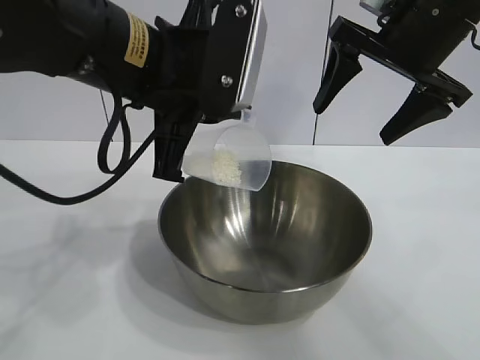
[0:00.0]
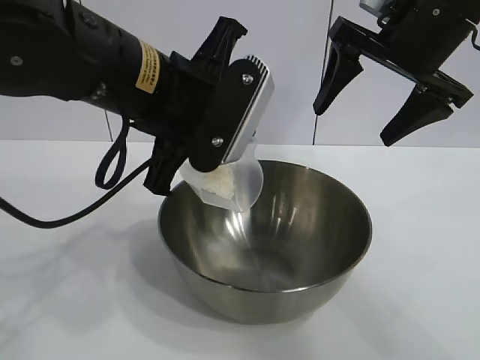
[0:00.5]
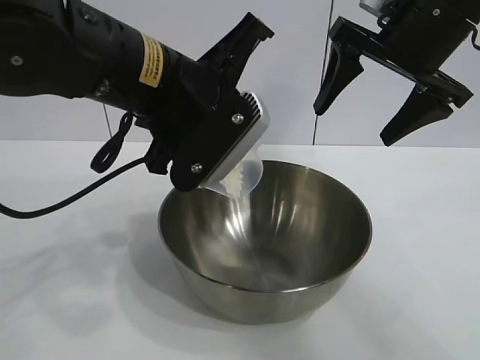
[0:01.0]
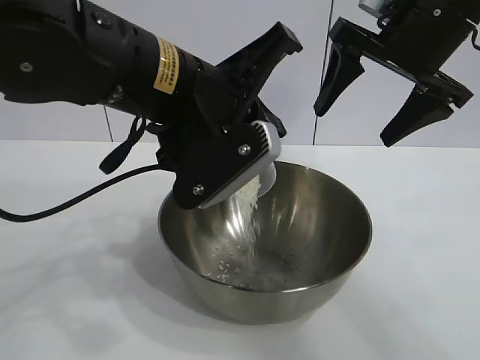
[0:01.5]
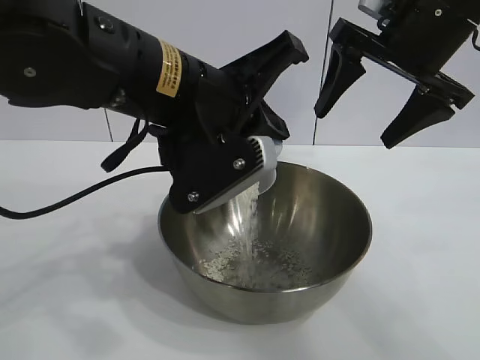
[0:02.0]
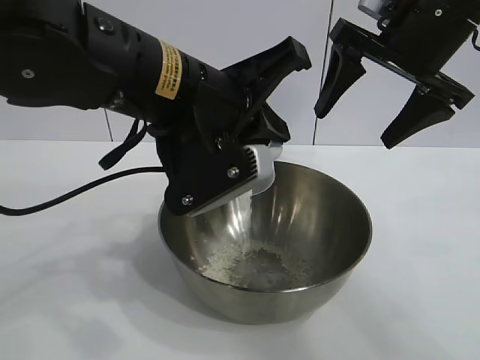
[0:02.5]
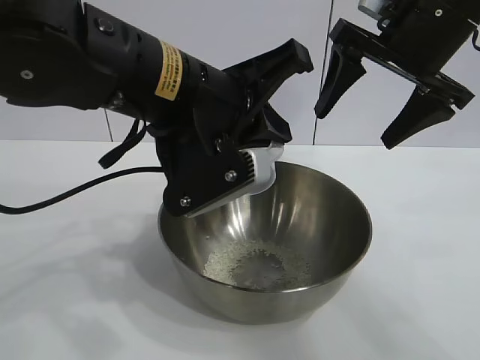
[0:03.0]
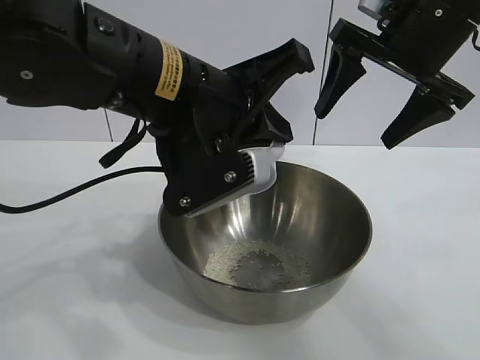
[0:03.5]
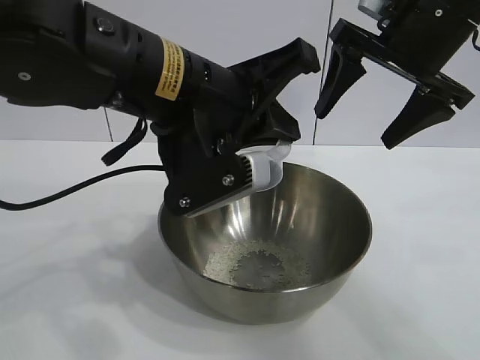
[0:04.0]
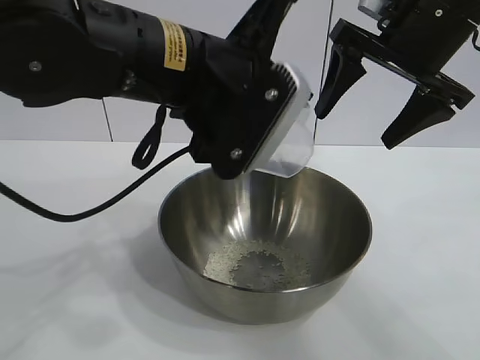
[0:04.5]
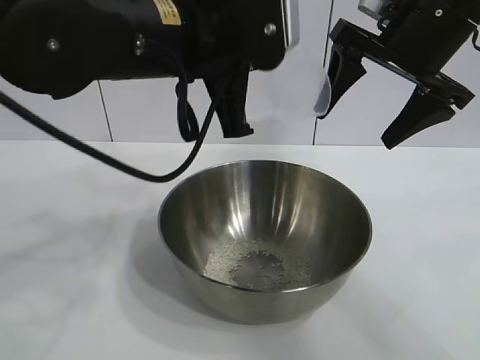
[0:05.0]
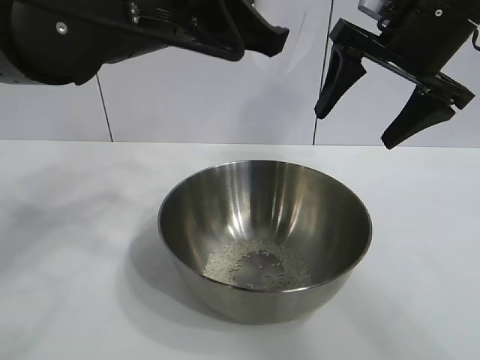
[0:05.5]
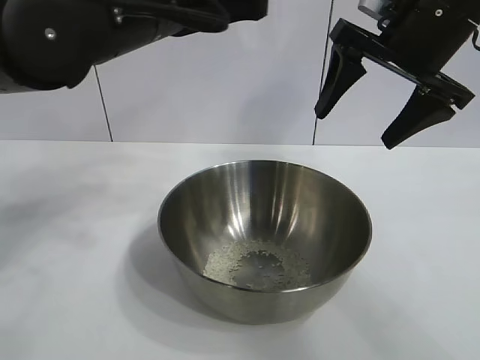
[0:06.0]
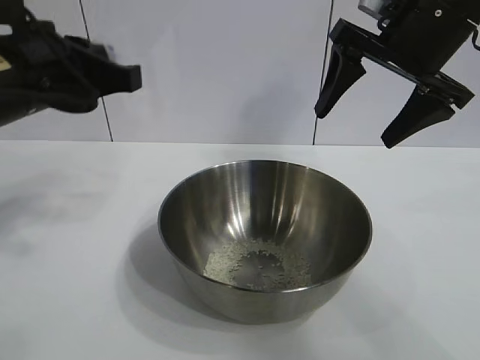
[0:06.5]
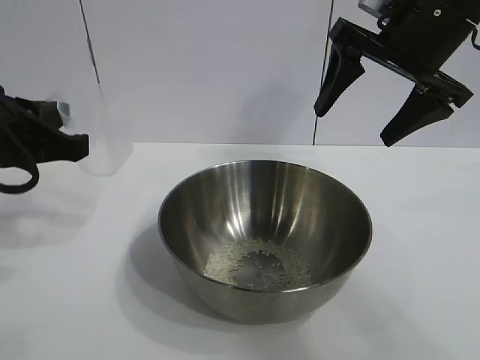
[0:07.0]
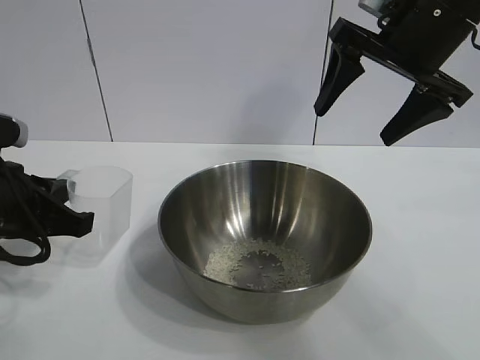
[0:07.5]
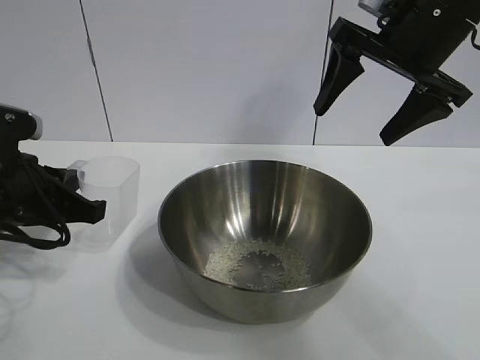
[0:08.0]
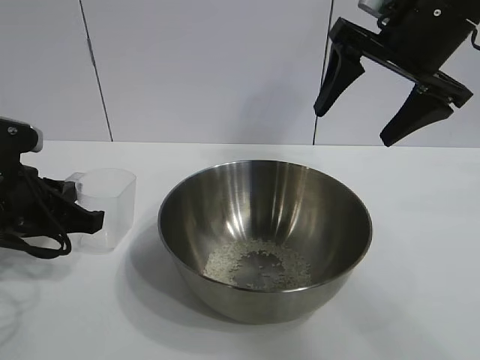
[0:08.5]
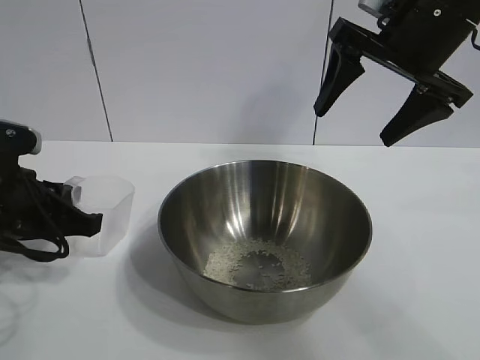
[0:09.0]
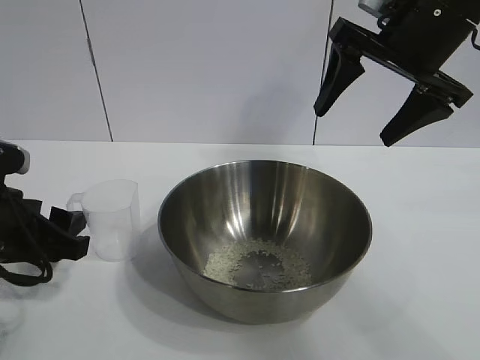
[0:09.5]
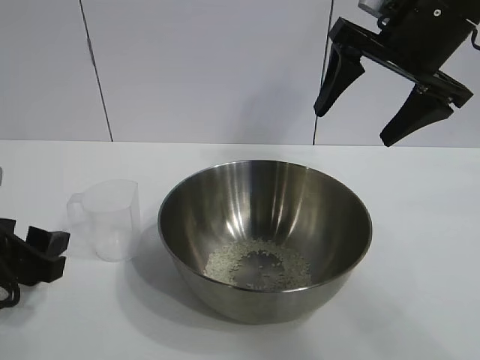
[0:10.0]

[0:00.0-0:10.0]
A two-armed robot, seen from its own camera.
Task of the whole recording: the right gripper grasp the rice container and place it in the center of the table, the left gripper grasp the rice scoop and pour the rice into the rice container.
Step, 0.0 to 3.0 s: Pour the rice from the cup into the bowl with the left gripper.
Step, 3.5 to 9.5 s: Place the cup on the table with the left gripper.

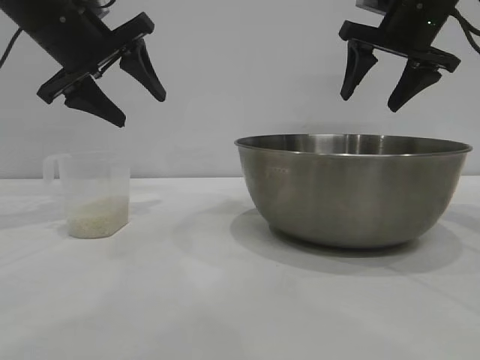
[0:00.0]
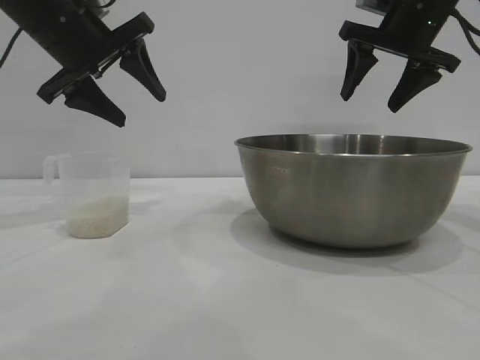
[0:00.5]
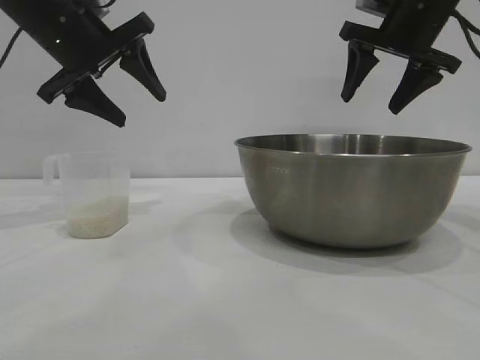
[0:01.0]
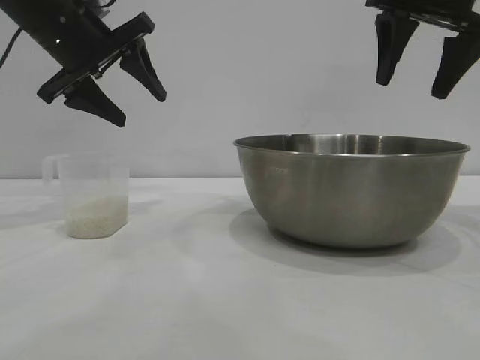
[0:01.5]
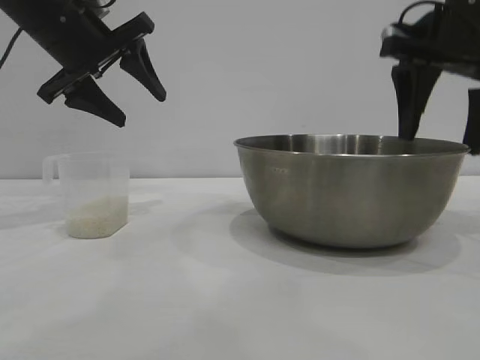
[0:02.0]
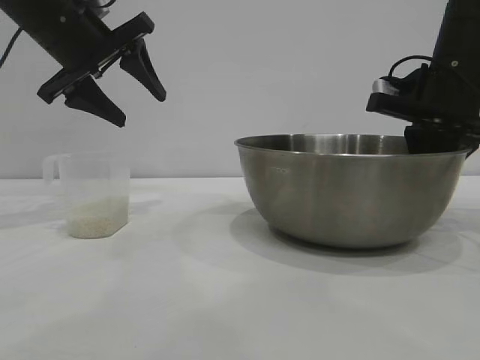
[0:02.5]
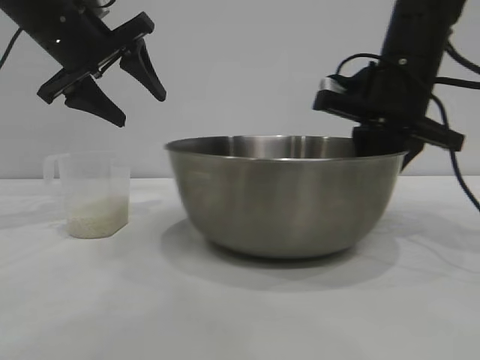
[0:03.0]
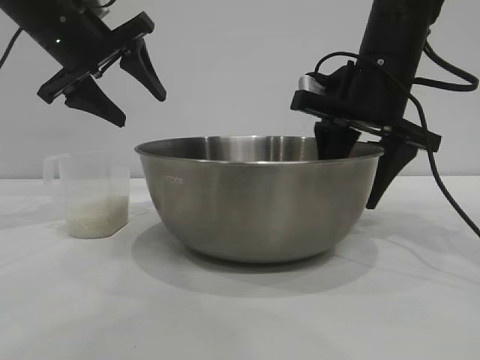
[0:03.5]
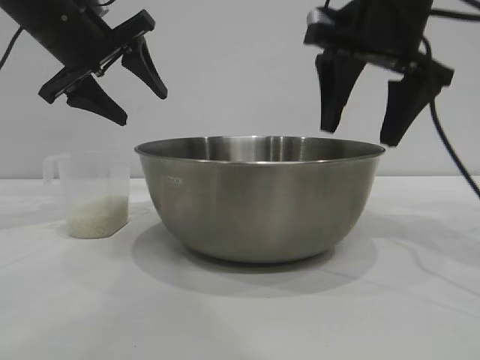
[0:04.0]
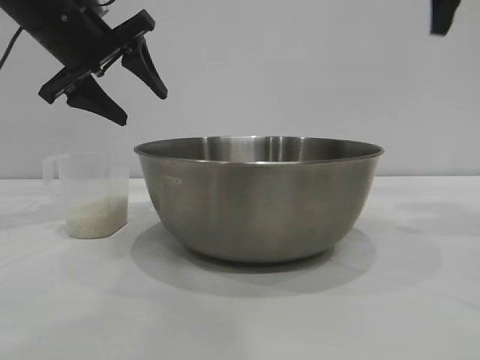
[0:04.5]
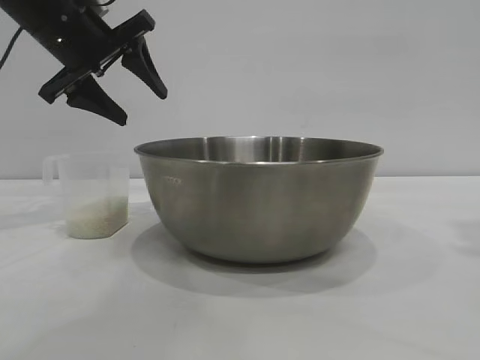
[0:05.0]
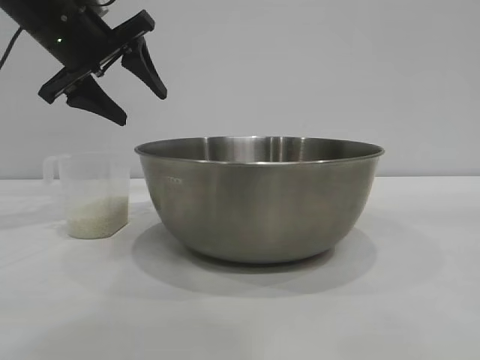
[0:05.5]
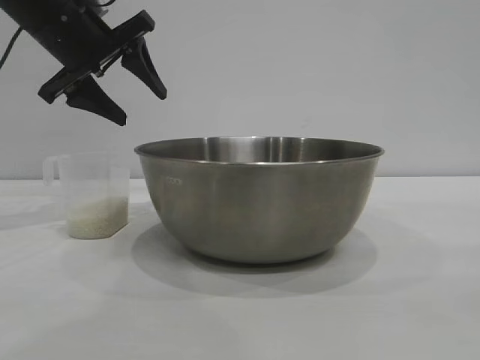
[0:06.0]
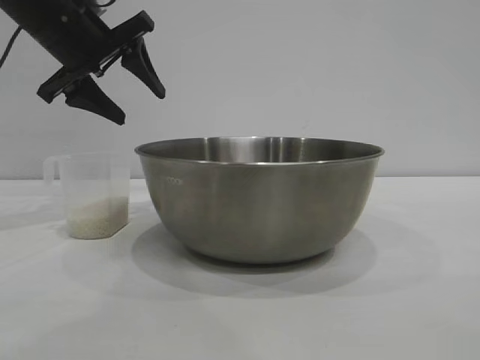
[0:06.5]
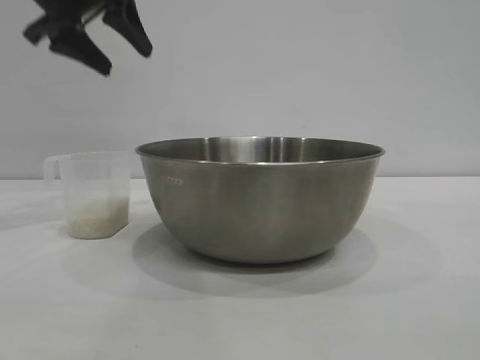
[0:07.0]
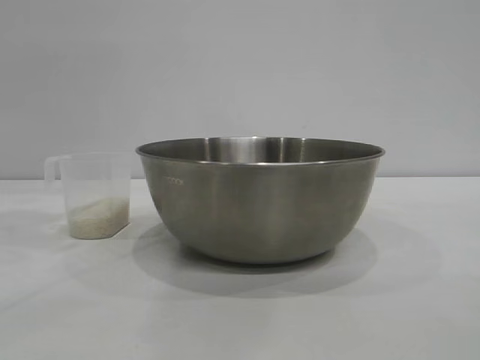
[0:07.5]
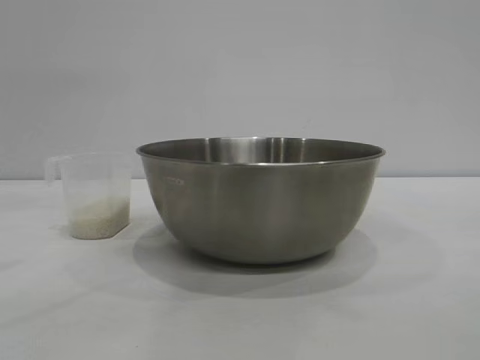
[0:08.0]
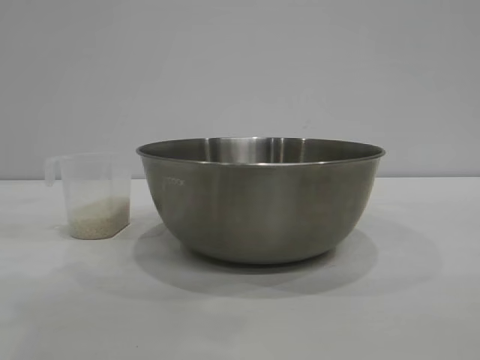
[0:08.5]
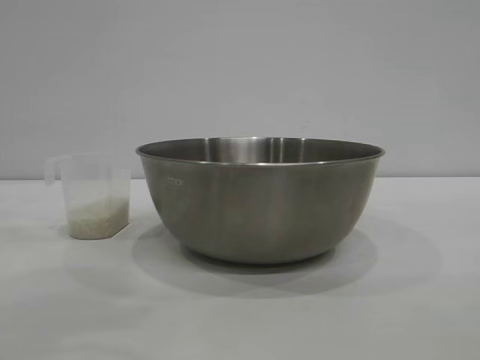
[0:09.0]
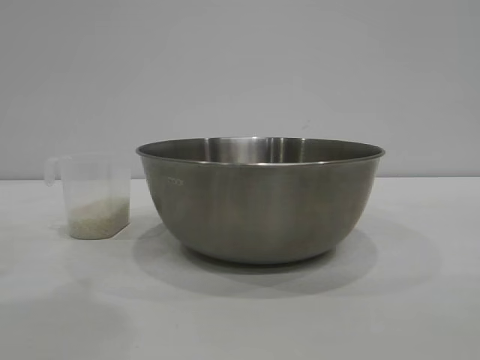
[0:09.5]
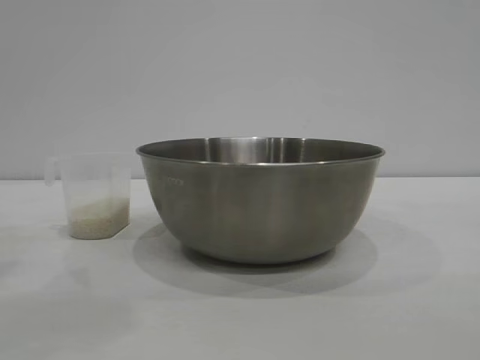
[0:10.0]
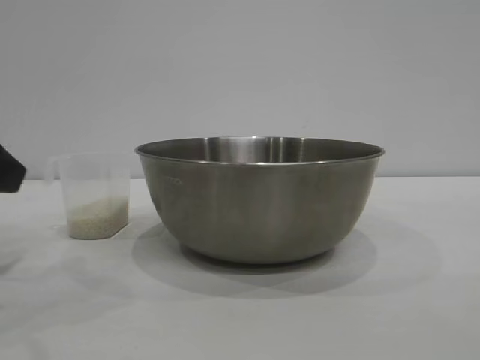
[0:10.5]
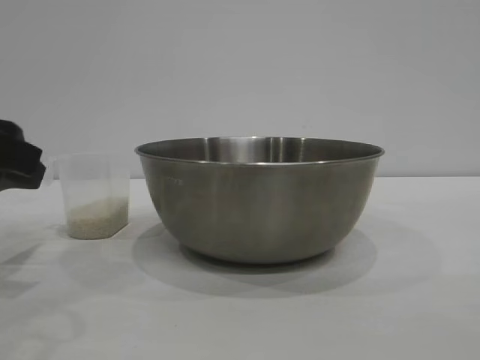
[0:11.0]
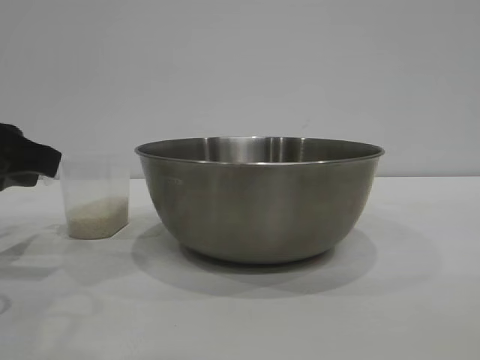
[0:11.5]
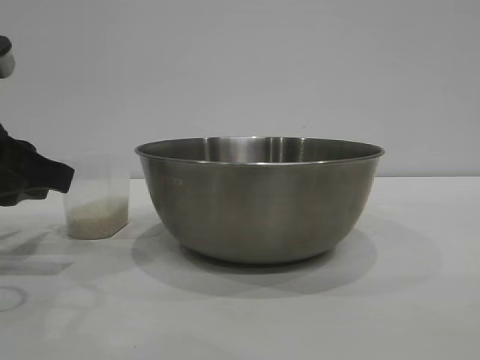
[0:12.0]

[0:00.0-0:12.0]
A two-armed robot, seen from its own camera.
Task of the whole recording: the right gripper grasp the rice container and place it in the center of the table, the left gripper grasp the rice scoop and pour the rice into the rice container.
Step, 0.0 to 3.5 s: Move the bowl to the center of view with the right gripper.

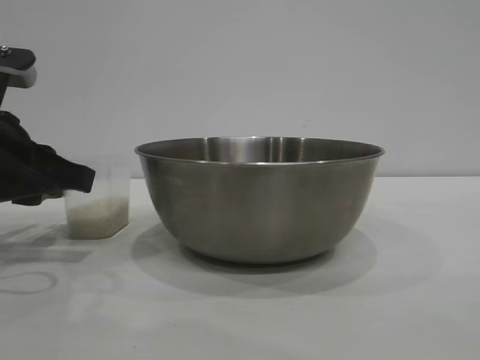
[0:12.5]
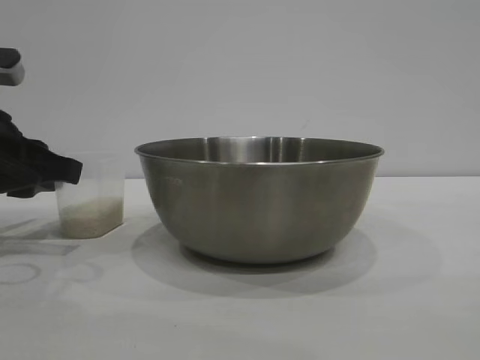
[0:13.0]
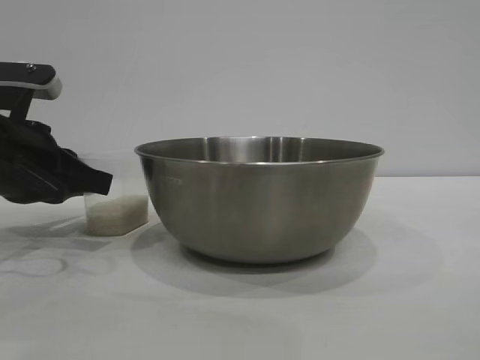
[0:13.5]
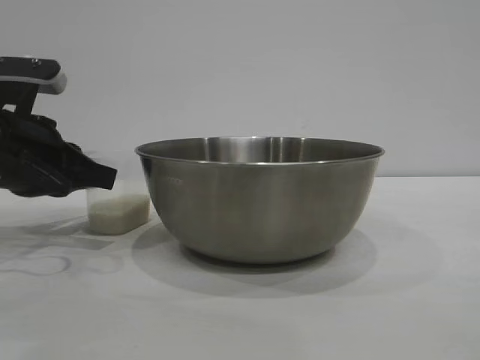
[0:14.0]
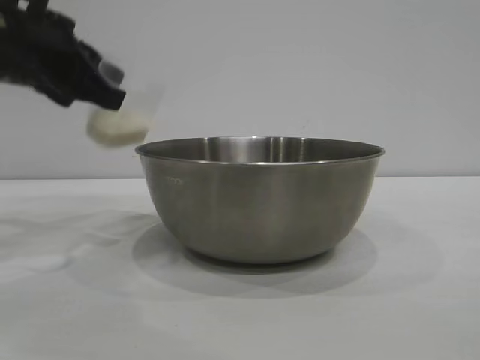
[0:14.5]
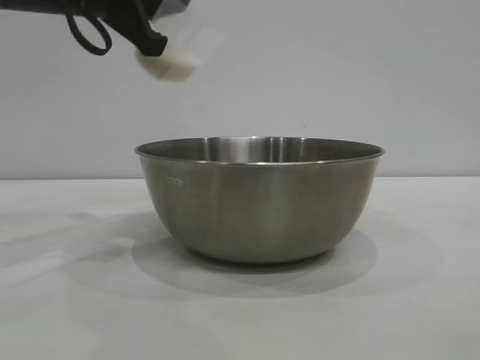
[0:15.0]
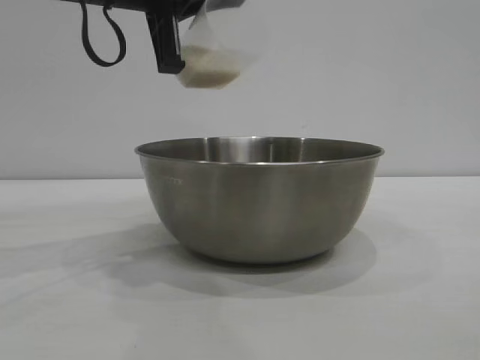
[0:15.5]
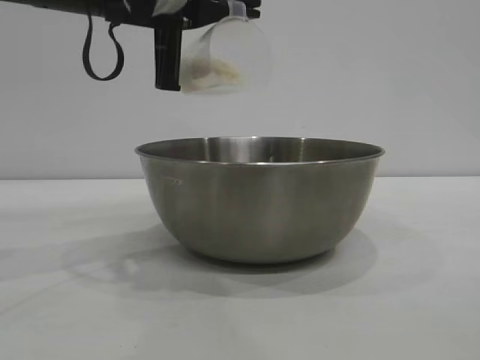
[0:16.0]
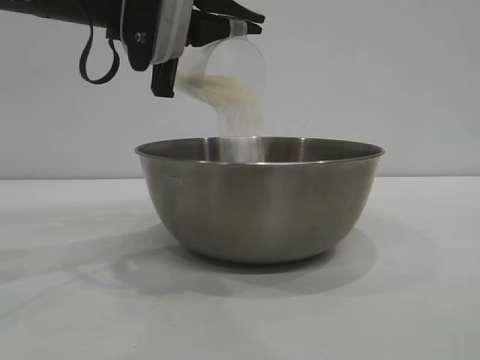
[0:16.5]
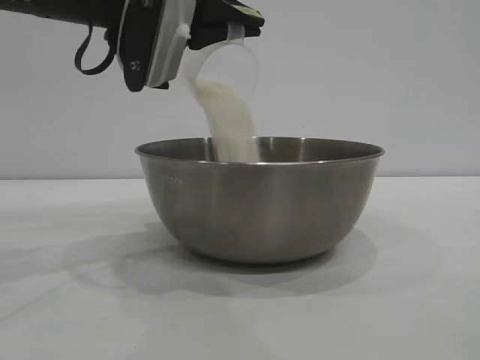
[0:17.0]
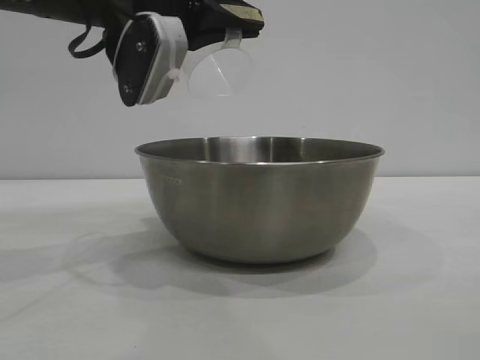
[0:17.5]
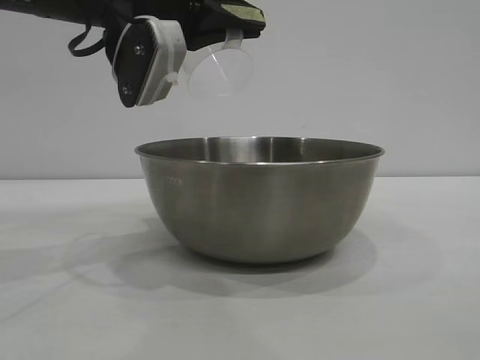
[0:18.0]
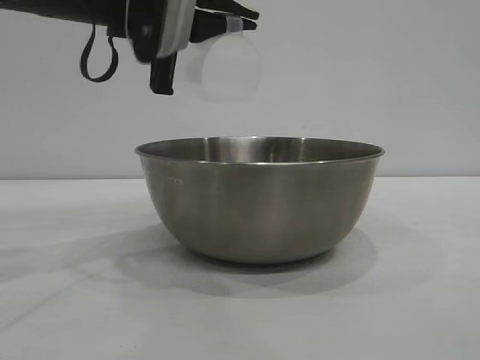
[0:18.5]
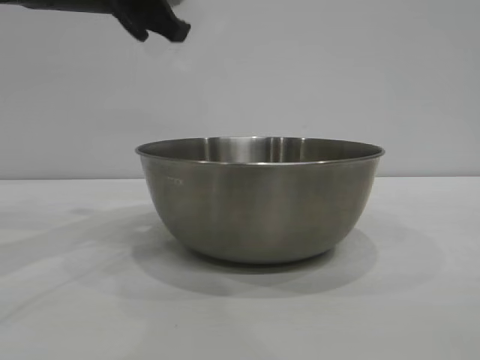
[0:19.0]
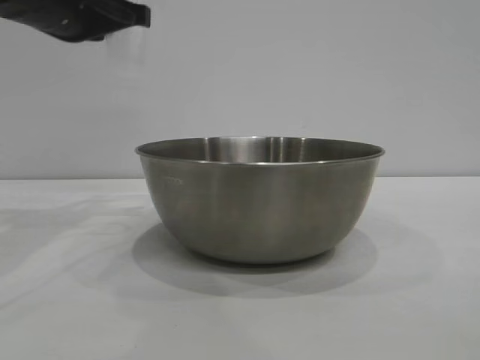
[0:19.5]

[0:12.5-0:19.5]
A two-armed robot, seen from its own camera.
Task of the whole recording: the right gripper grasp the rice container and place it in the center of the table, the left gripper grasp the rice scoop and pour the rice into the rice container.
Step, 14.5 to 17.0 s: Pour the rice from the cup into the bowl with the left gripper.
